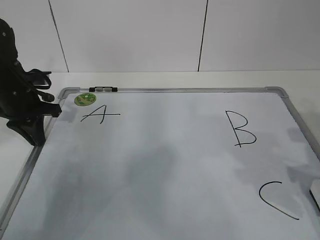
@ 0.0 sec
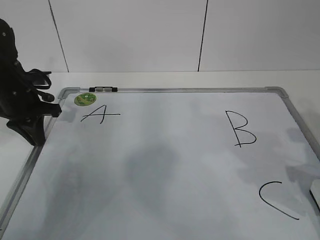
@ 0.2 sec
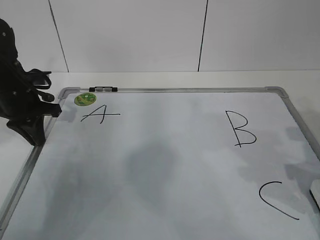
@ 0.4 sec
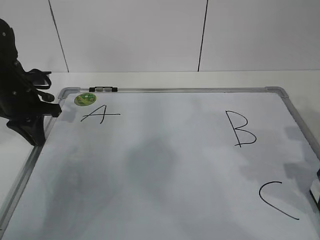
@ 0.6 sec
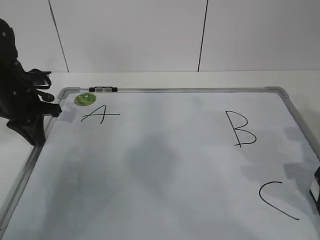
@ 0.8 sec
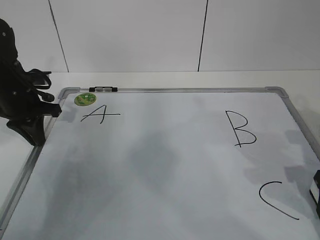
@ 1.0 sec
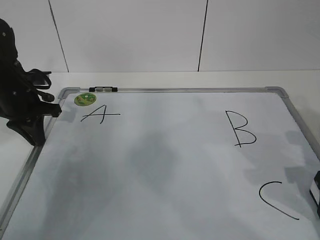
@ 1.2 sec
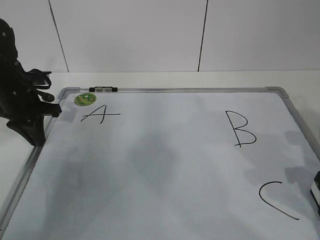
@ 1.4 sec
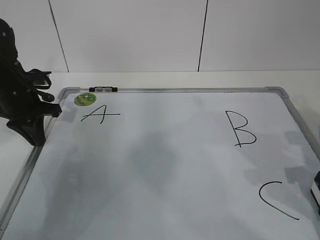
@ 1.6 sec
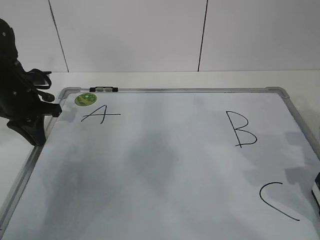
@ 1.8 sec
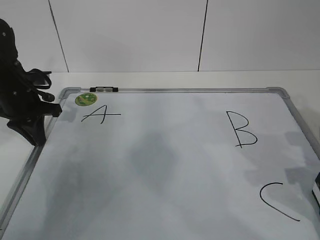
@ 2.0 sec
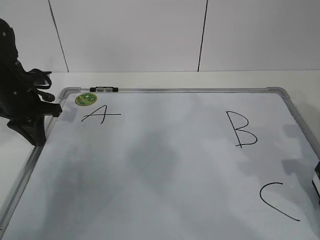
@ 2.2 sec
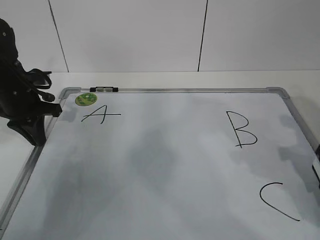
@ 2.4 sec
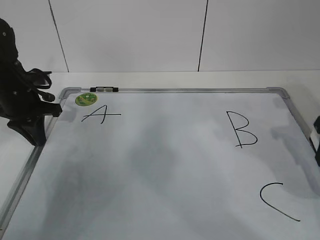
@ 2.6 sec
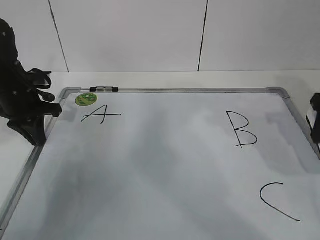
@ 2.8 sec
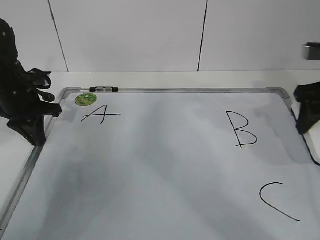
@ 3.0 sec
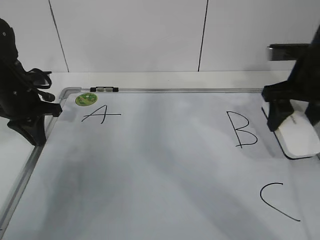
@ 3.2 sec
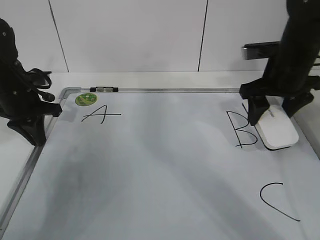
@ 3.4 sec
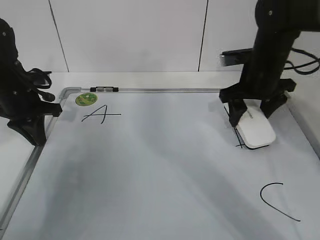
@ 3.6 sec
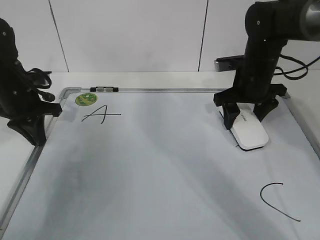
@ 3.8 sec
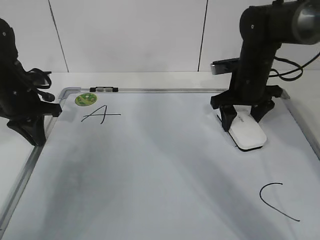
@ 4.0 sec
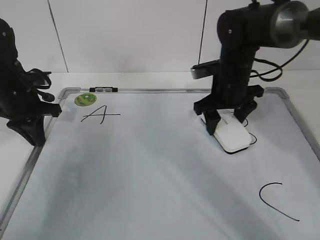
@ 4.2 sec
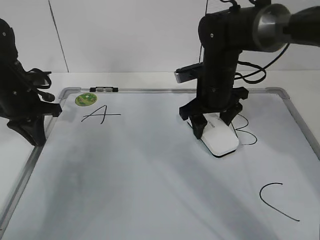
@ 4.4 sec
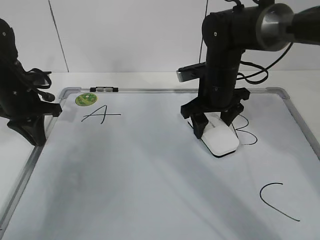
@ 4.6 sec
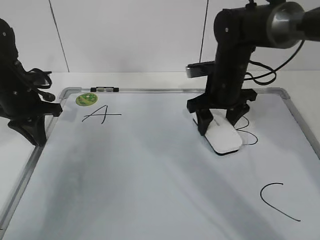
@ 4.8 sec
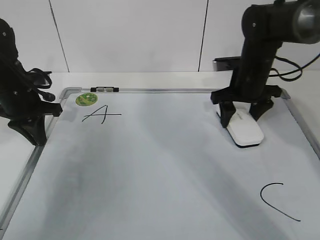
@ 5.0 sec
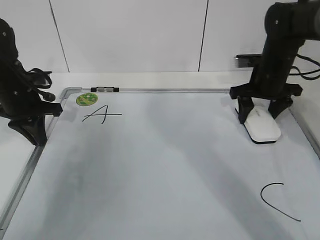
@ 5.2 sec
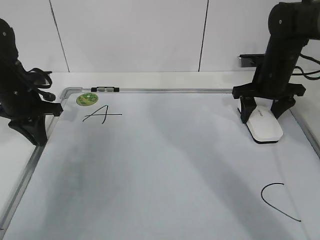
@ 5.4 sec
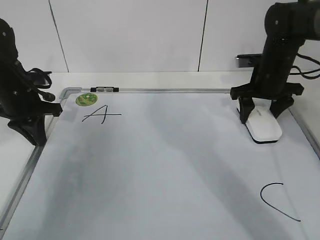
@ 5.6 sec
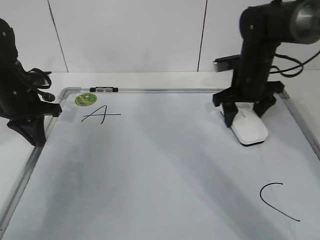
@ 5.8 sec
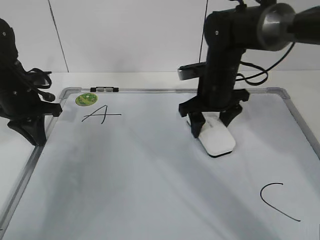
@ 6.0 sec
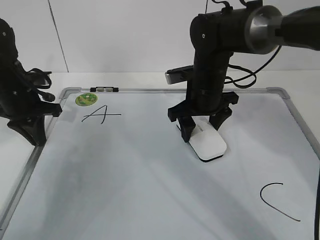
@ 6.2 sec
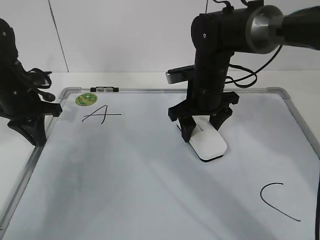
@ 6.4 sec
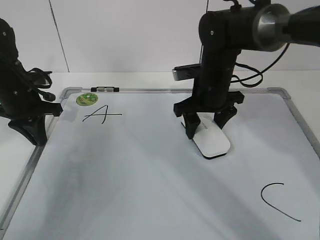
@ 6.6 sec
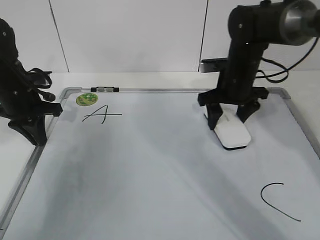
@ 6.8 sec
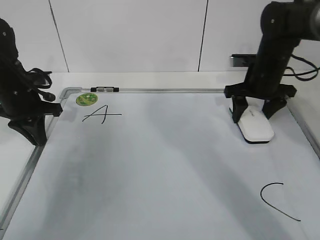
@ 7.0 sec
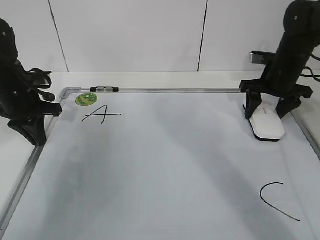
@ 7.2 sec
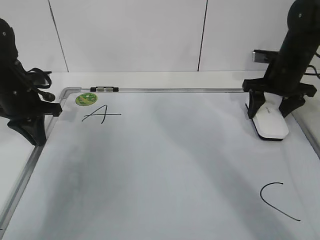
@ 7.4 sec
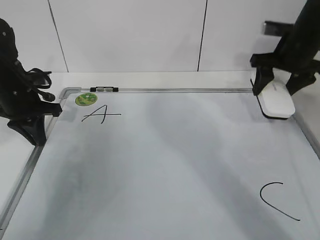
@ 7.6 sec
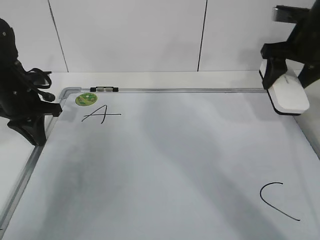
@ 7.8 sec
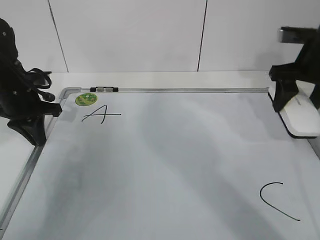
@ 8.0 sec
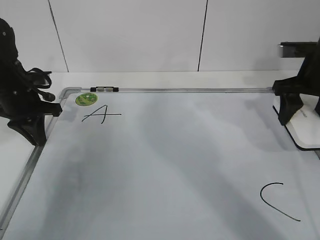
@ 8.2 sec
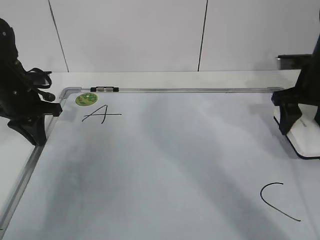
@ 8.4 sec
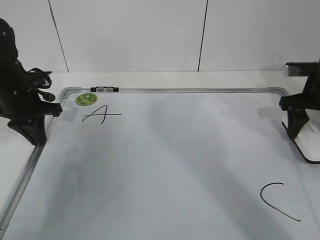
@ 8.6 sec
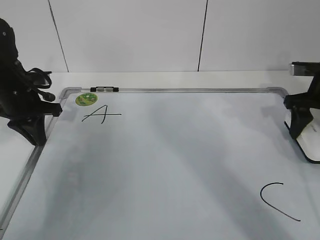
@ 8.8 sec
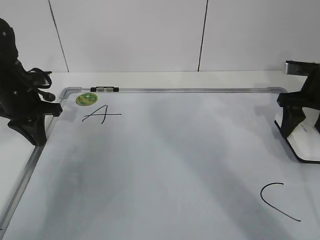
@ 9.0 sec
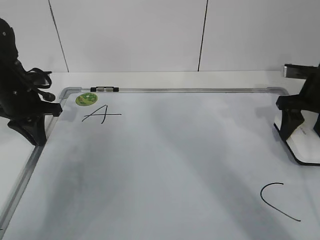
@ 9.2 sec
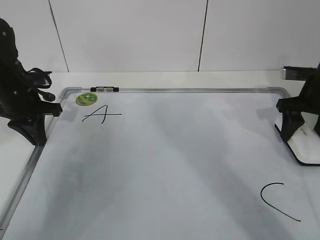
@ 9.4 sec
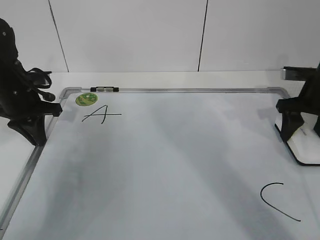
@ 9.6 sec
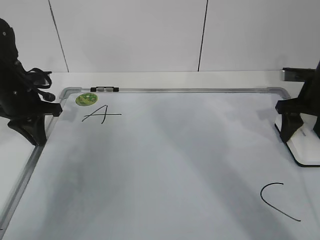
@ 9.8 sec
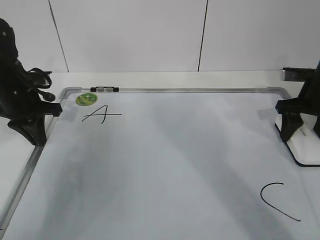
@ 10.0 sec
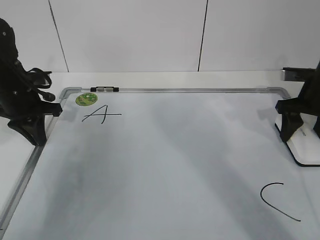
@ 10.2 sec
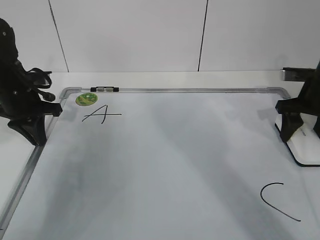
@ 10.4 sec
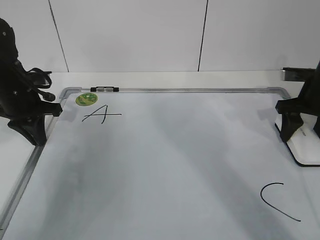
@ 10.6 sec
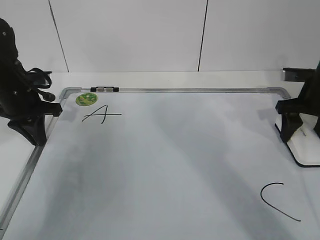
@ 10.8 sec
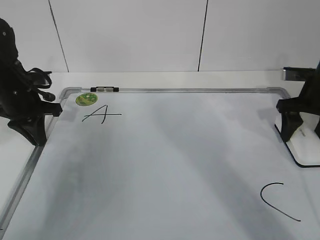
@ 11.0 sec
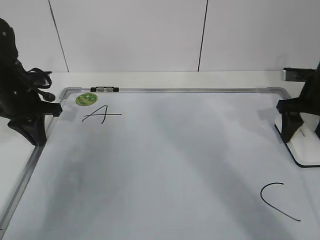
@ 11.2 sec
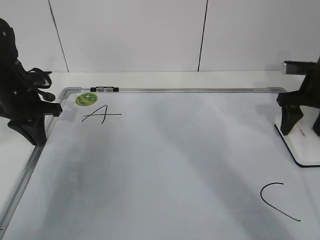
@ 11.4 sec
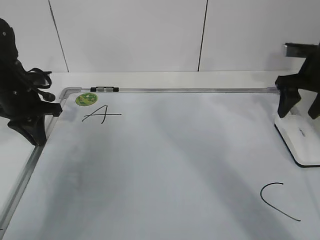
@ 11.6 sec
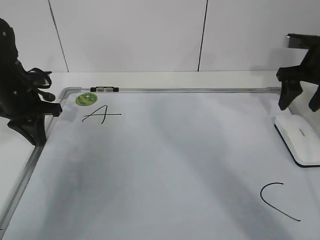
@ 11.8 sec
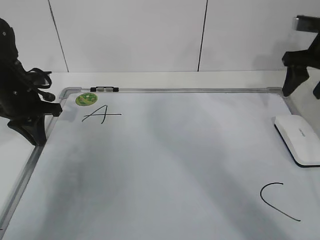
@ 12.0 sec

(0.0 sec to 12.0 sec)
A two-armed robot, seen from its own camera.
Task of the whole recording: pick up the eraser on the blackboard and erase the letter "B".
Step, 0.6 sec - 4.8 sec: Erase the letter B with your right hand.
Step, 5.0 sec - 7.6 sec: Put down the eraser with your right hand.
1.6 sec - 3.0 sec: The right gripper shifts roughly 10 cm forward and upward.
3.0 sec - 4.4 sec: The right gripper goes approximately 20 cm to the left, forward and downward.
4.4 sec - 6.0 sec: The right gripper goes to the right and returns, about 15 cm each way.
6.0 sec - 7.6 sec: The right gripper moves to the right and upward, approximately 15 cm.
7.6 sec - 9.0 sec: The right gripper shifts approximately 5 cm backward.
9.0 sec - 10.4 sec: The grippers stay close to where they were, moving slightly.
10.4 sec - 12.0 sec: The right gripper shifts approximately 10 cm upward.

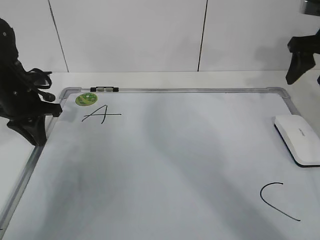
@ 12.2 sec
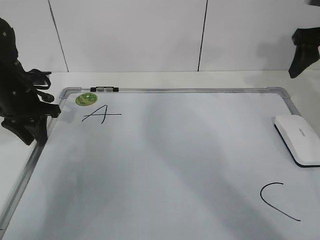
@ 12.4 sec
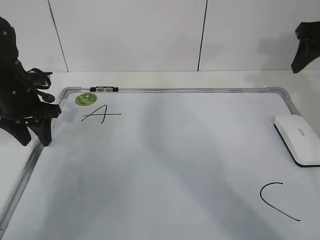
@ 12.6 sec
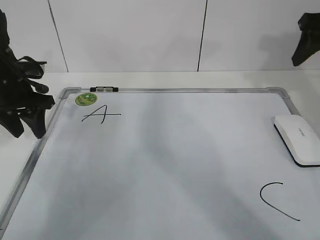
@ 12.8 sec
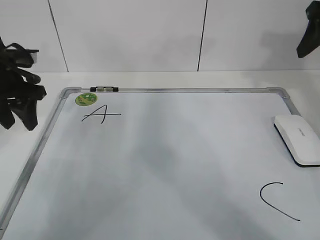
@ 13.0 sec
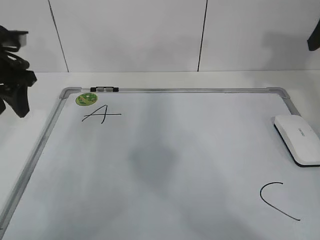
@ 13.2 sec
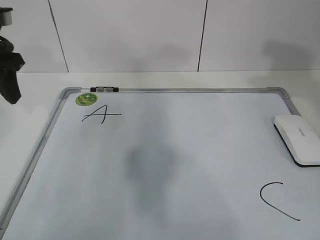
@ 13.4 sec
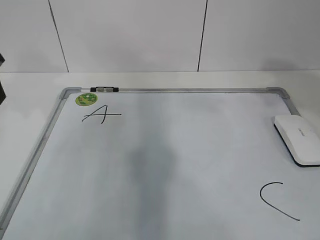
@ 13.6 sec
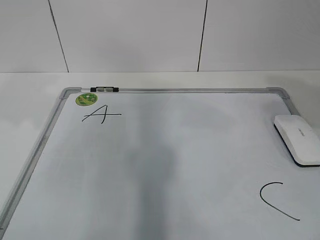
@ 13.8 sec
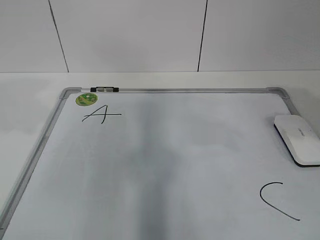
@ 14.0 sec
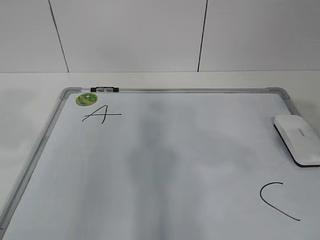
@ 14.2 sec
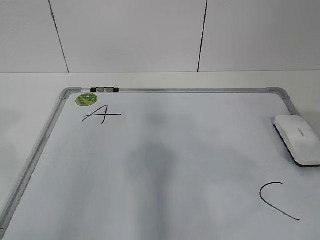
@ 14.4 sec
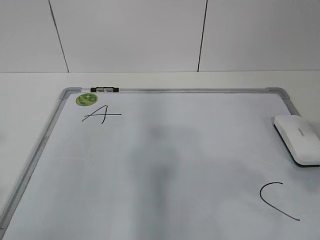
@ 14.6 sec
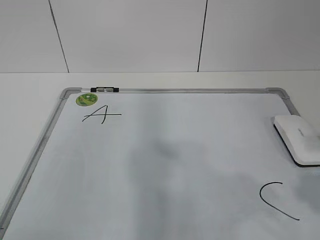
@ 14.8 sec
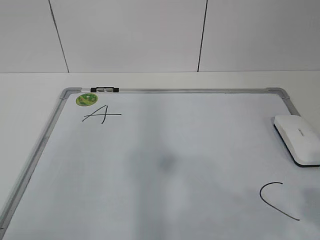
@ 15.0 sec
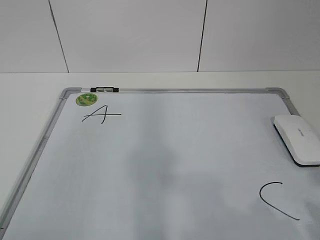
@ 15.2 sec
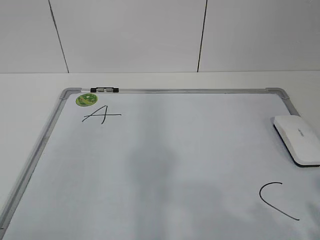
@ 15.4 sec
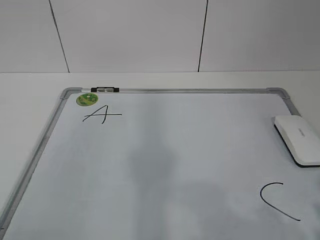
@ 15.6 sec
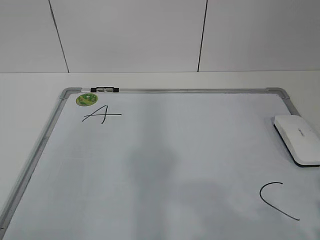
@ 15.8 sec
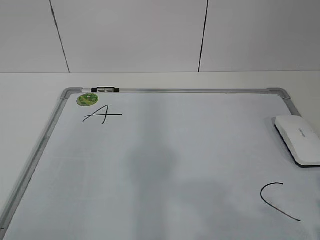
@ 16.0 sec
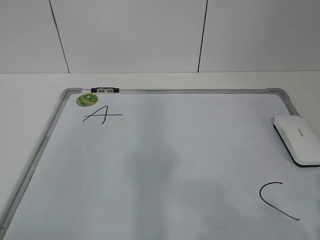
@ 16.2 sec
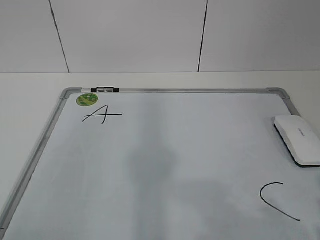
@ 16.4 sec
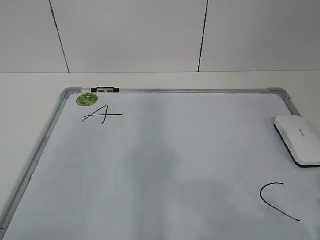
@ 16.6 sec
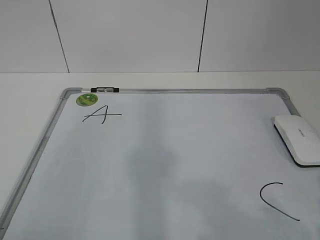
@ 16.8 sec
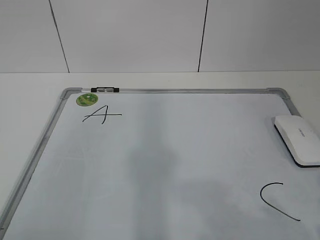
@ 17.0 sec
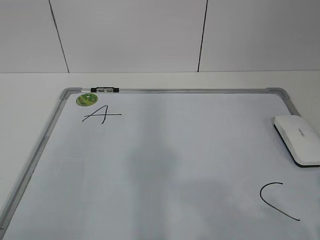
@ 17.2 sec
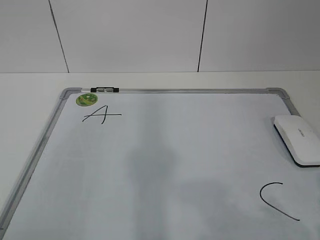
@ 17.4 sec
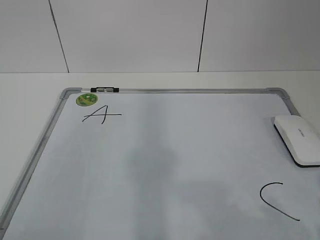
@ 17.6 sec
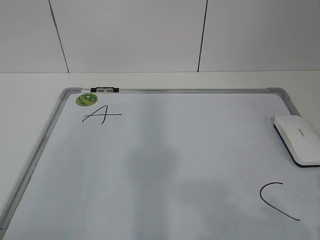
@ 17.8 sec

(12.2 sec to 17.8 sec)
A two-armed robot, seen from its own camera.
Task of the whole recording: pick up the eraser on the blackboard and erase the letter "B".
12.2 sec - 13.6 sec: The right gripper goes roughly 20 cm backward and upward, while the left gripper heads upward and backward, covering some 20 cm, and opens.
13.6 sec - 15.0 sec: The right gripper heads backward and downward, covering about 25 cm. Meanwhile the left gripper goes some 30 cm backward.
